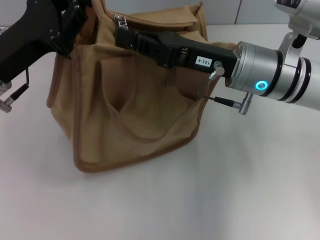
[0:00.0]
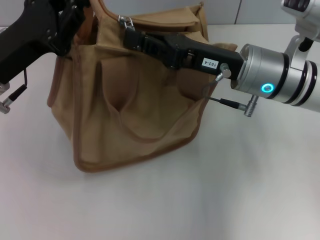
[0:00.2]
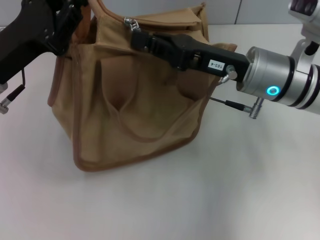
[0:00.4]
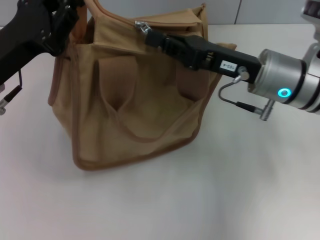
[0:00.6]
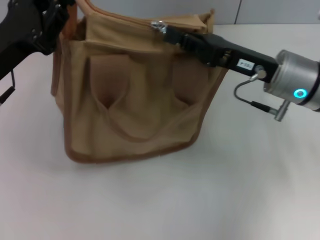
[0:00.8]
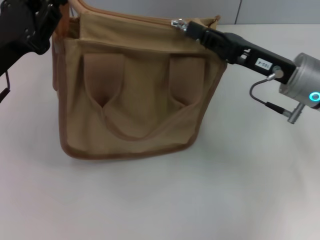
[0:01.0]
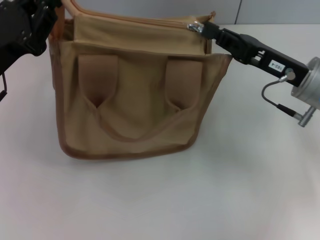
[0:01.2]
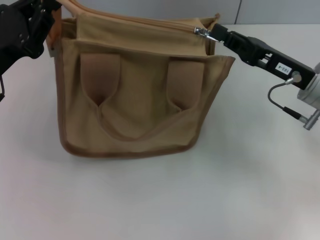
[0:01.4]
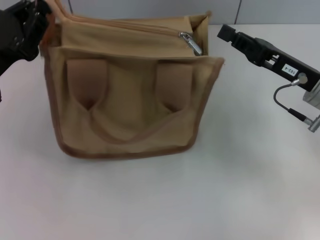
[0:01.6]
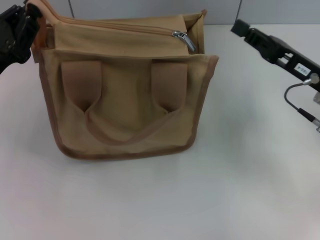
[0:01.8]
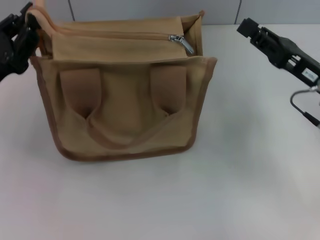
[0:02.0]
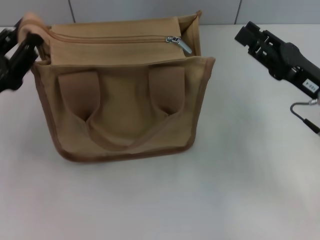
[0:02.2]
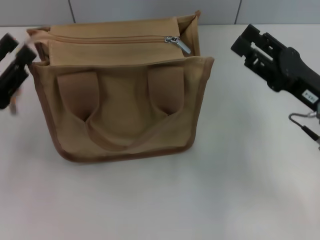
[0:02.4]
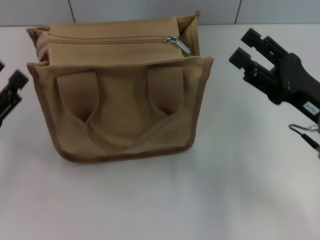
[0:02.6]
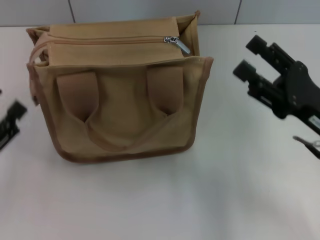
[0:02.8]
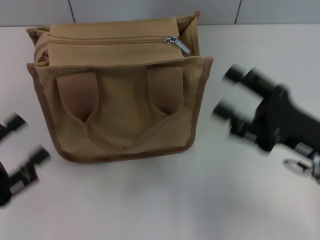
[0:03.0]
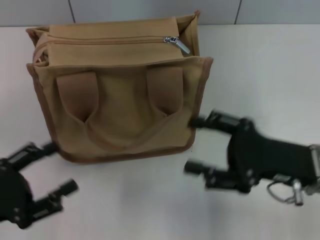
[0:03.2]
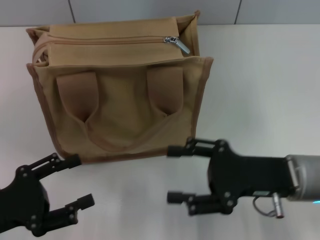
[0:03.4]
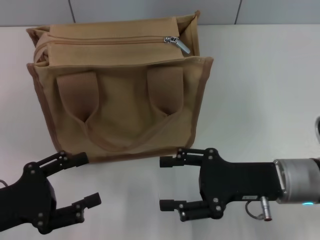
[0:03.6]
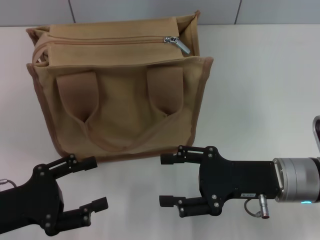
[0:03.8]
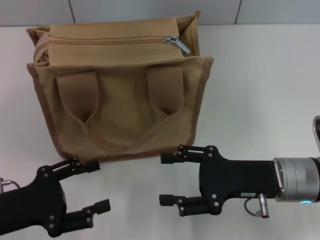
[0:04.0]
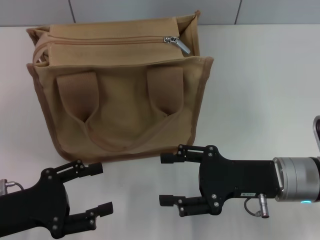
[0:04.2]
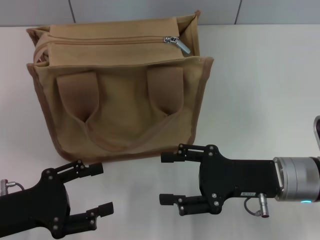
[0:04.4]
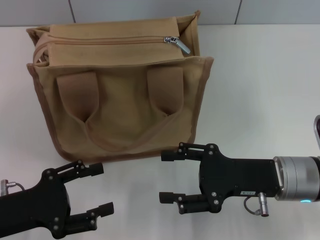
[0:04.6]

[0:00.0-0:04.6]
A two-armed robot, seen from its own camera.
Step, 0:01.6 to 0:02.4: Grab the zipper with your left hand.
0:00.0 to 0:01.6: The right gripper travels to the right by roughly 10 cm.
0:01.6 to 0:03.0: The left gripper moves backward and downward, approximately 15 cm, and opens up; the right gripper heads backward, covering about 10 cm, and opens up.
0:03.0 to 0:04.6: The left gripper shifts by some 5 cm; the right gripper ends up approximately 5 cm from where it was.
